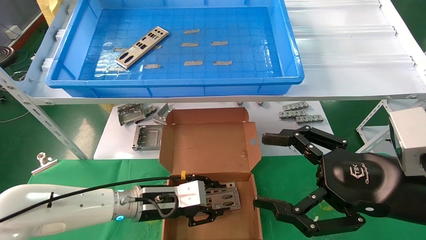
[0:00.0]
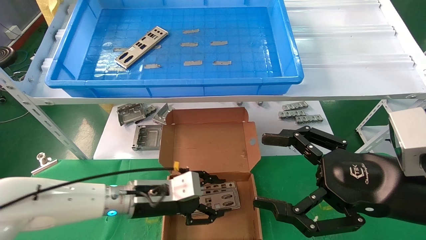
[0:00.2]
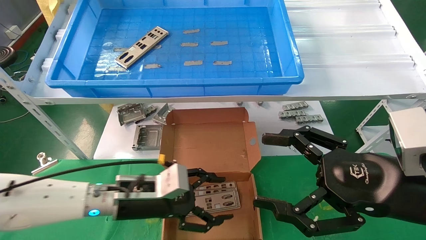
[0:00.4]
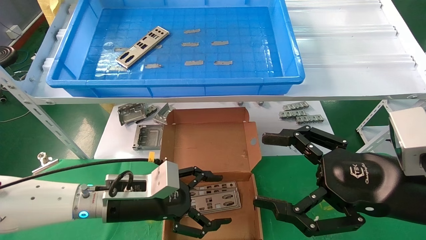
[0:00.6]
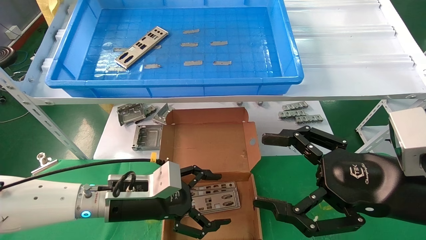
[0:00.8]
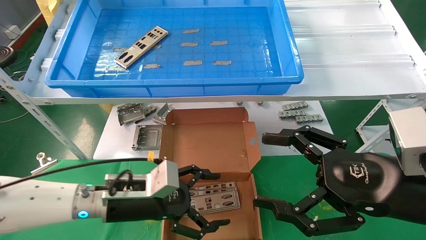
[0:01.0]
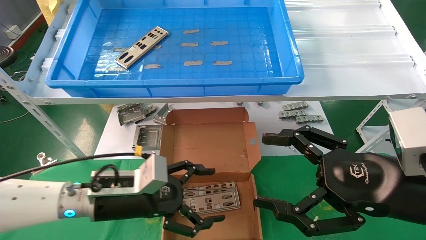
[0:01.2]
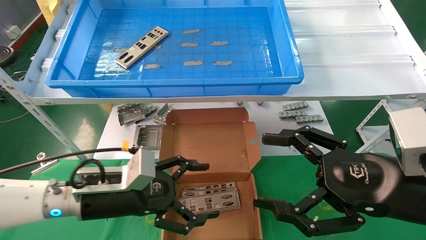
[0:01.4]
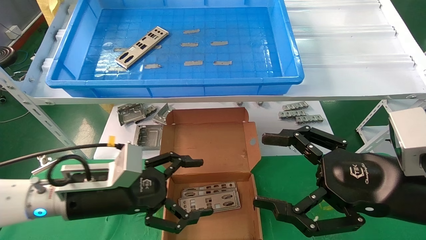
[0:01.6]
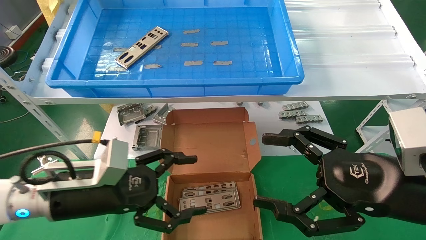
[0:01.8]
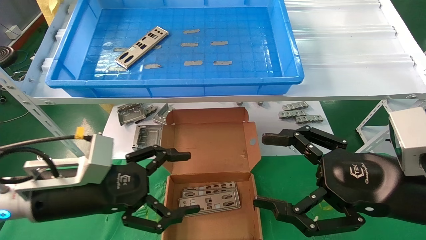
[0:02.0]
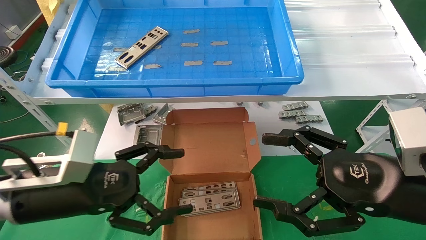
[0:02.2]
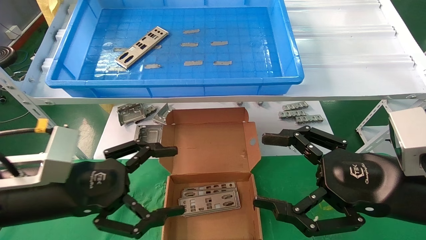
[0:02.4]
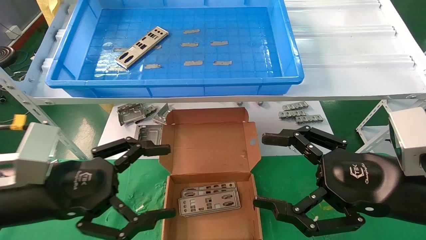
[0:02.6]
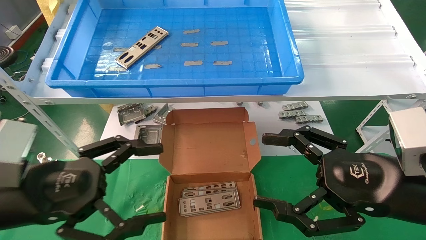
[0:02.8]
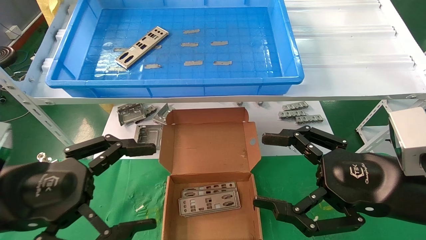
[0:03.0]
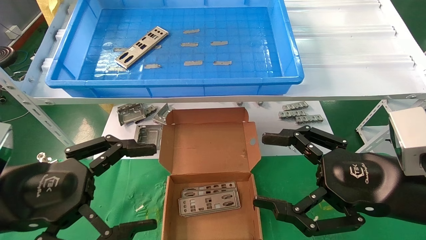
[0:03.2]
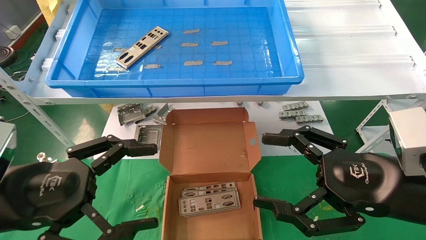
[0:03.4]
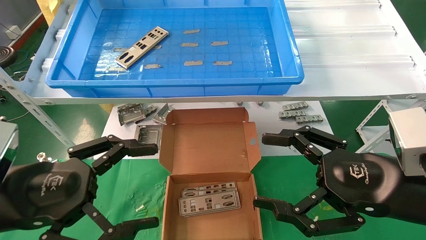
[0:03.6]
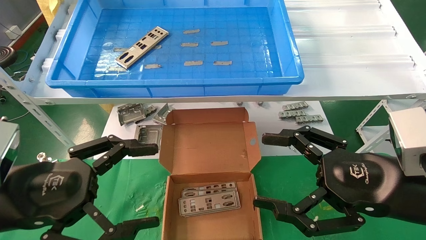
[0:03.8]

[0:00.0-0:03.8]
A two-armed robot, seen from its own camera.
Task of the whole recording: pick up the parts on the tray and put them in the cardboard box.
0:00.0 to 0:01.2: The left gripper shifts roughly 5 cm backward, and opens.
0:01.2 to 0:02.6: The left gripper heads backward, to the left and upward, covering about 15 cm.
0:02.6 to 0:03.8: The grippers make only small movements.
